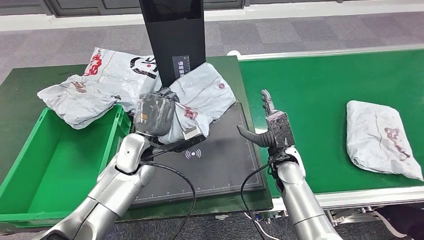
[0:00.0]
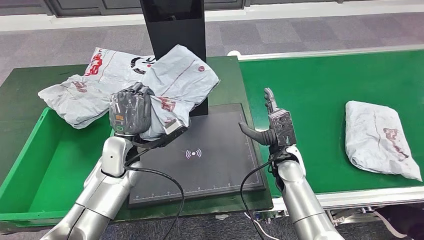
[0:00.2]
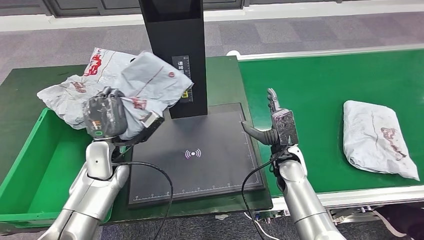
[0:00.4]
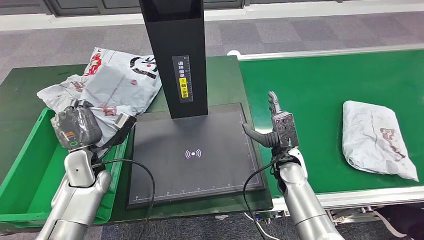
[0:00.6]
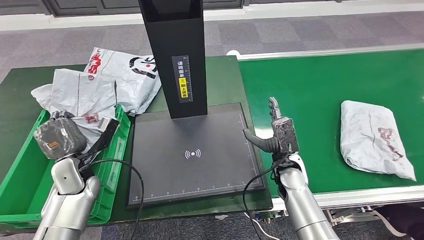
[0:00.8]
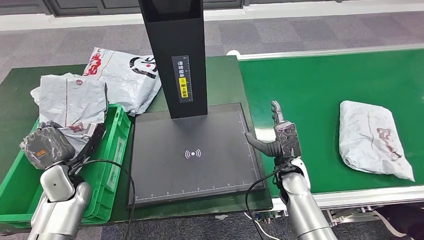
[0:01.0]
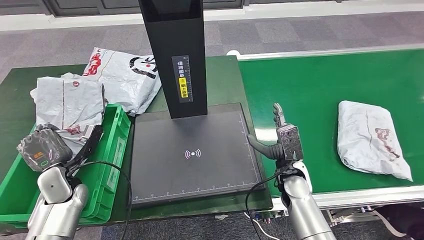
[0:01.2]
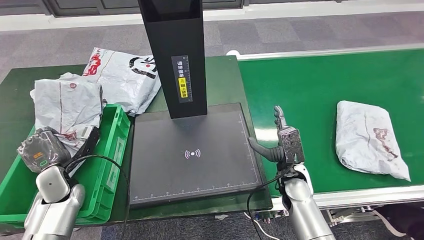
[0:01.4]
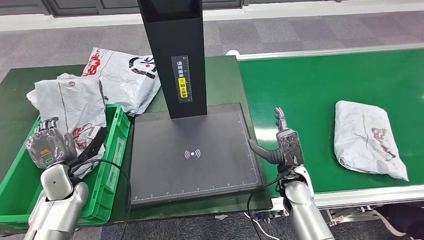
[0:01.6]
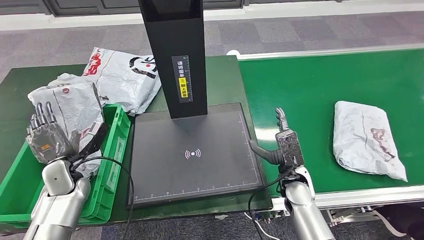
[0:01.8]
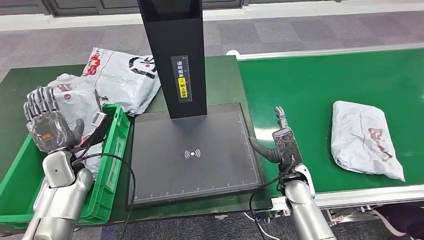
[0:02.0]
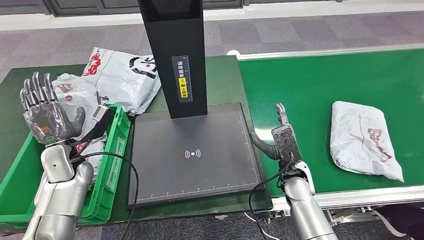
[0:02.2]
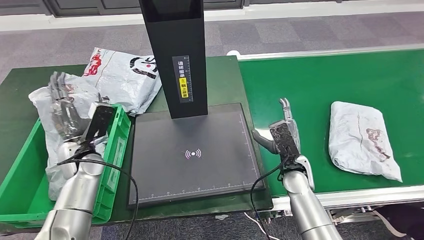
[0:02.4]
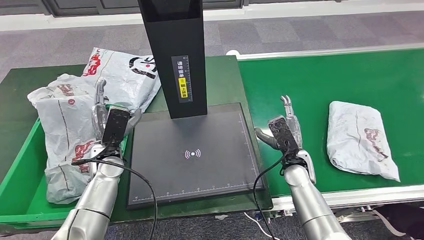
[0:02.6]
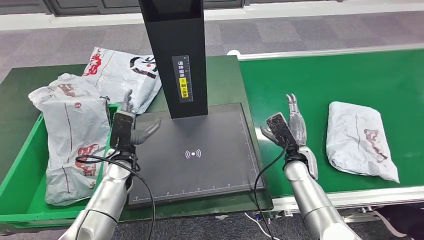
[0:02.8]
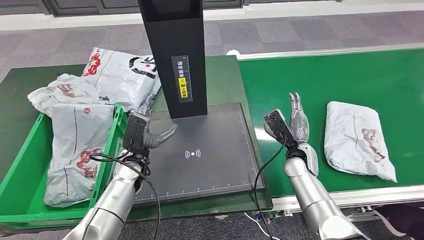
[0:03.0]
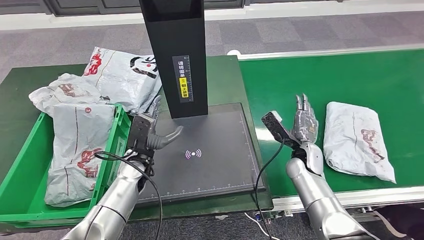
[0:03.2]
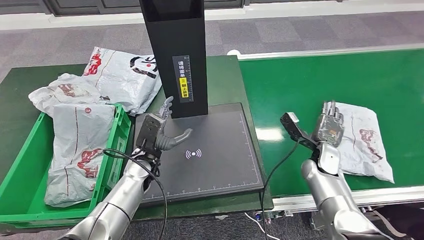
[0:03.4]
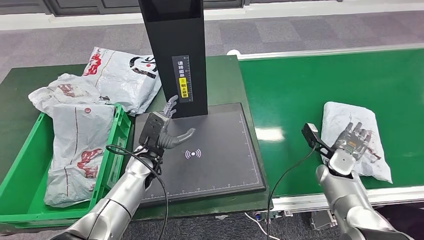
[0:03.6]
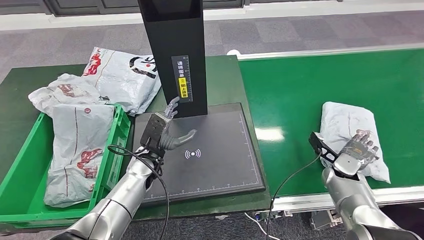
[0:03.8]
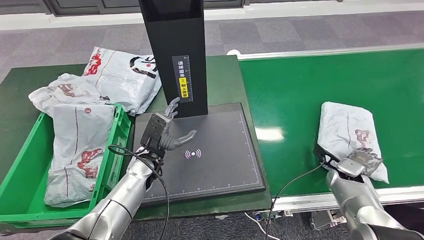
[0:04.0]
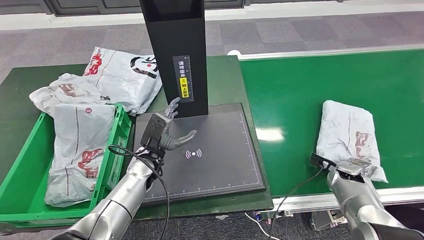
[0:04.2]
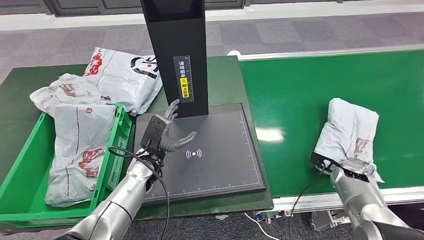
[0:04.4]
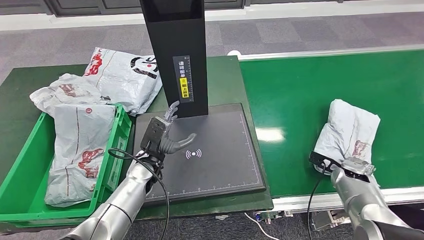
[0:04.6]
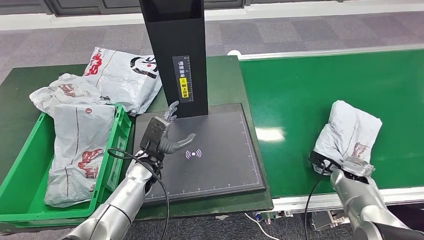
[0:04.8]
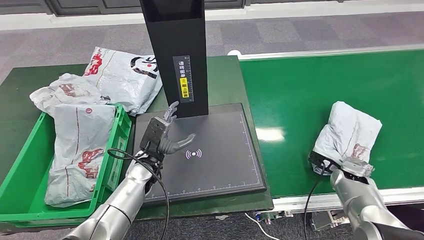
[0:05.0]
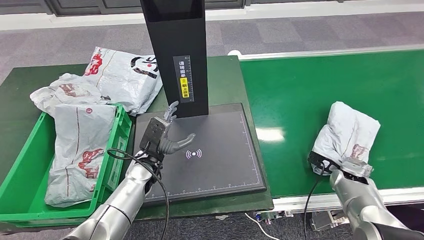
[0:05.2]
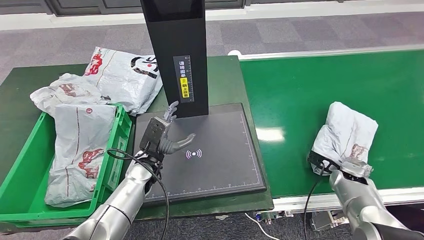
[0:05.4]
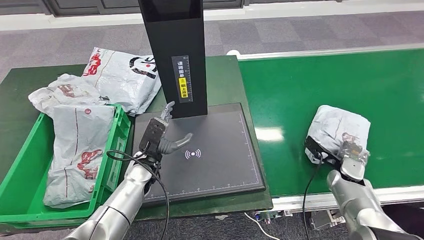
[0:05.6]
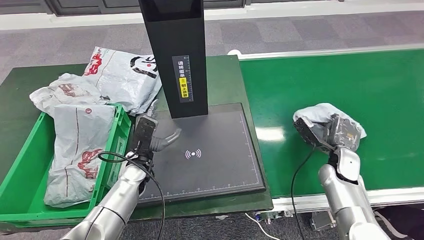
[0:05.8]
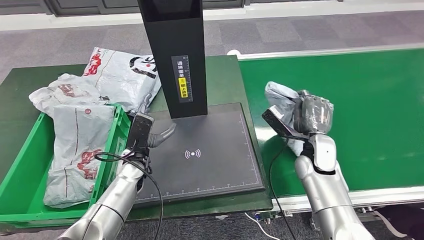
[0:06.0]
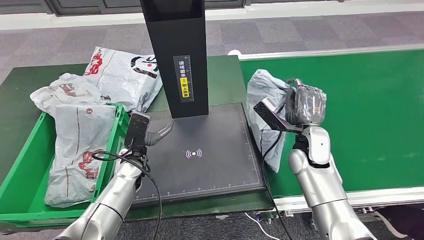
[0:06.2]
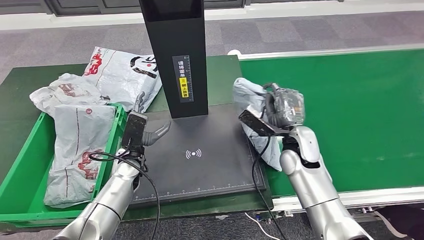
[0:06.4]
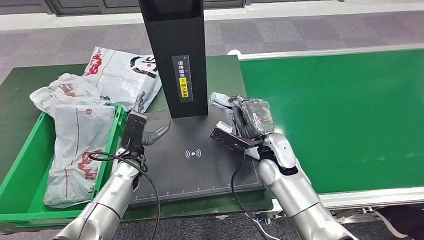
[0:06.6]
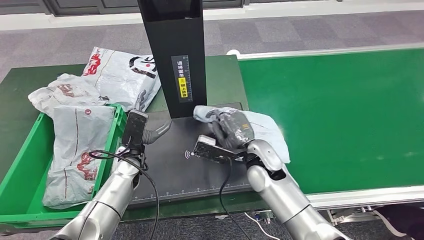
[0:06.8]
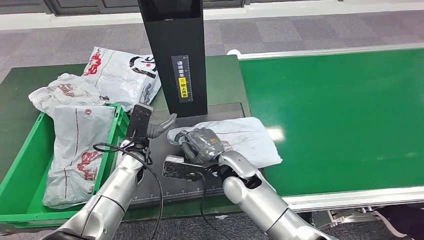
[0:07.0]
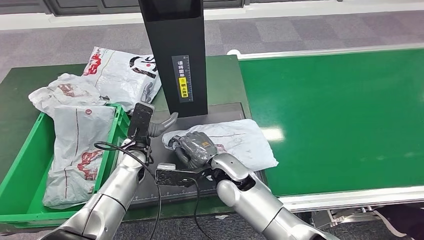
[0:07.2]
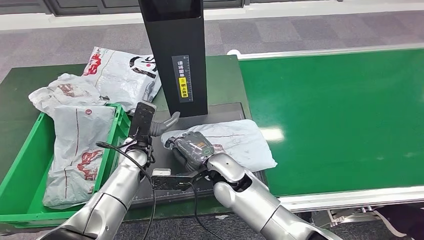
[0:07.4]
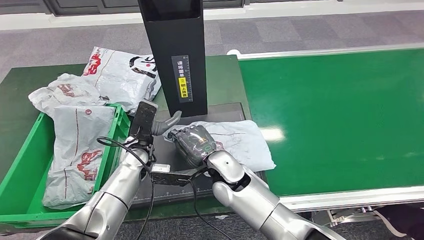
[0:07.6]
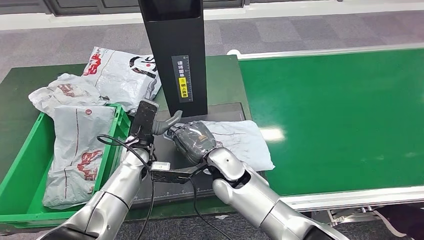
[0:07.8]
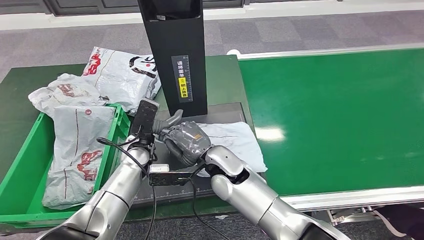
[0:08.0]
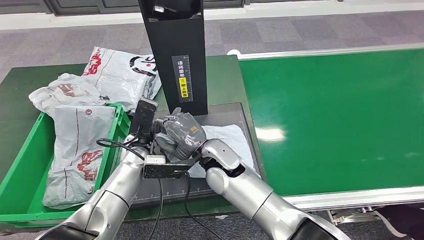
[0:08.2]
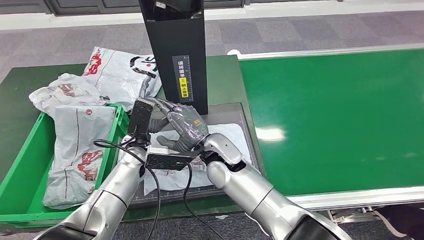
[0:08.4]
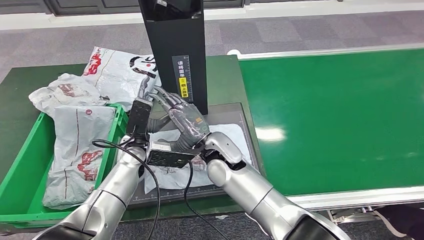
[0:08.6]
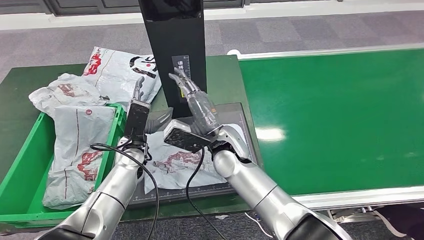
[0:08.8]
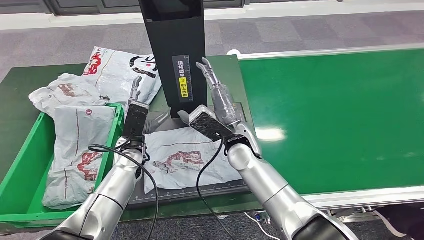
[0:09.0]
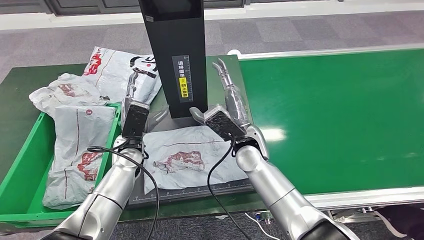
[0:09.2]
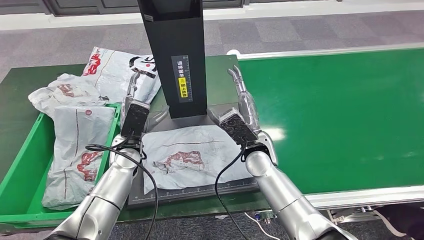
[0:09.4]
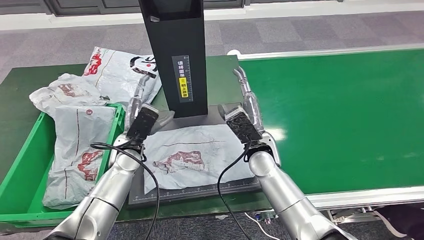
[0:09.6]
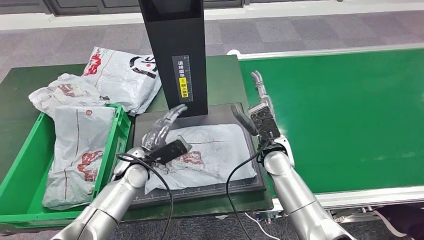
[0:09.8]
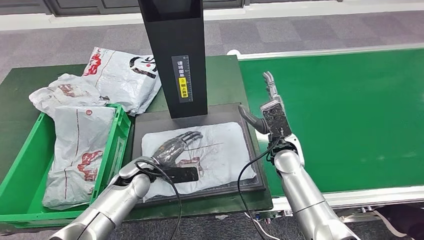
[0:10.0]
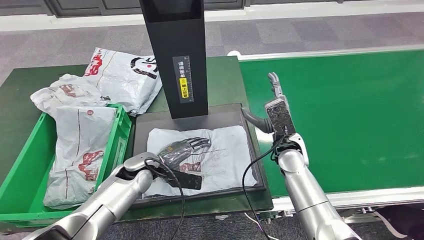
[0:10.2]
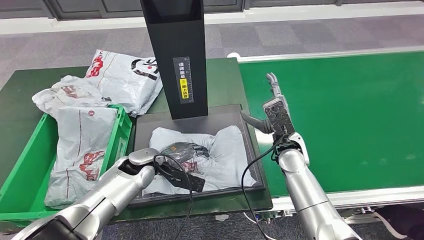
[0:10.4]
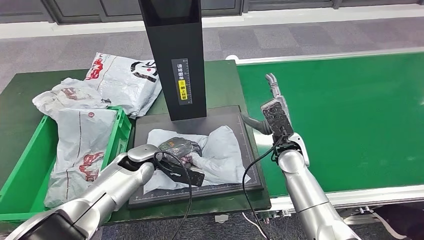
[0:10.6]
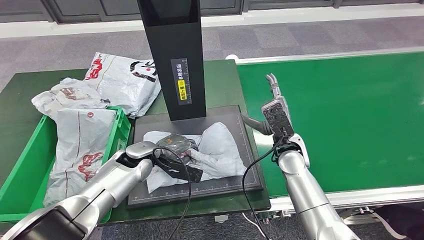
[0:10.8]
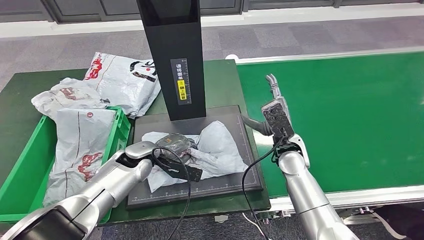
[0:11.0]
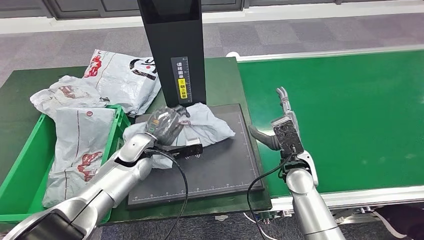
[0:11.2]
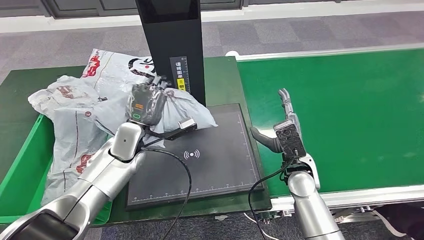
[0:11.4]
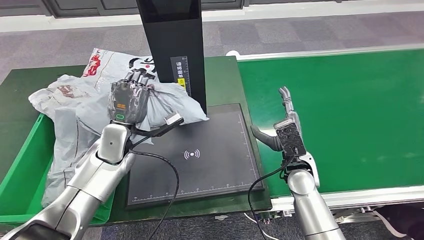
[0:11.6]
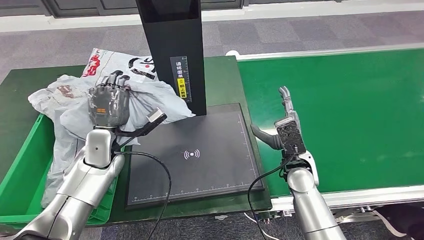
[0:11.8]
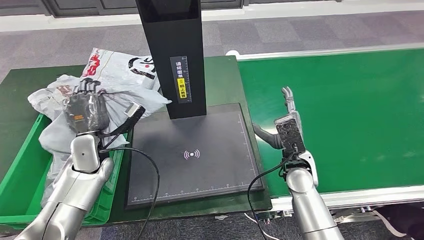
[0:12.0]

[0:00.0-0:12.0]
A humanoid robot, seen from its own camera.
Step, 0:01.2 to 0:03.2: Place the parcel into the delivery box.
Step, 0:03.4 to 0:06.2: Pick up the parcel from the conveyor belt.
Step, 0:06.4 to 0:08.4: Place the parcel onto the inbound machine.
0:07.6 to 0:09.0: The right hand travels forward by approximately 5 cm.

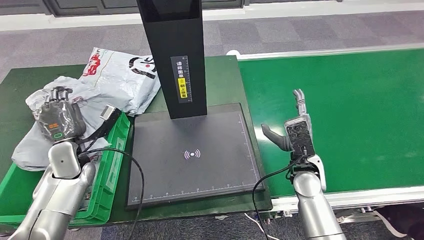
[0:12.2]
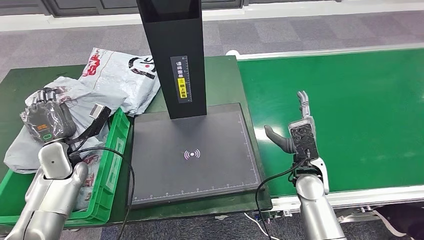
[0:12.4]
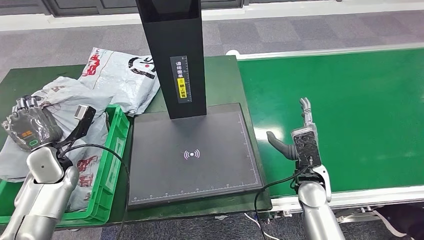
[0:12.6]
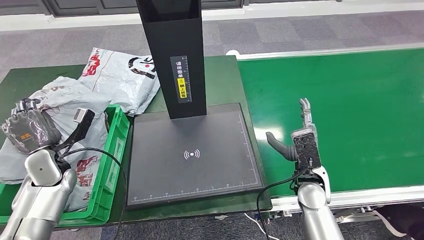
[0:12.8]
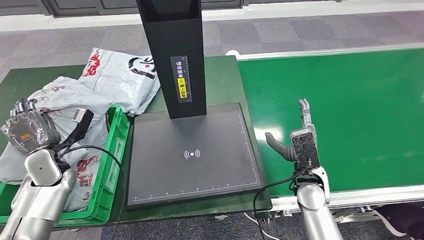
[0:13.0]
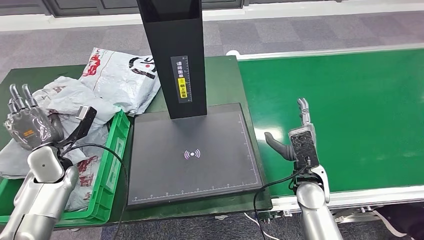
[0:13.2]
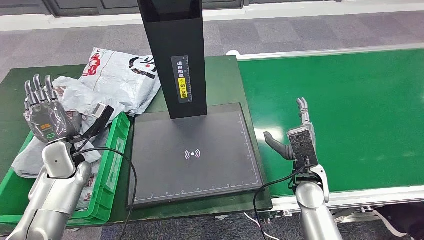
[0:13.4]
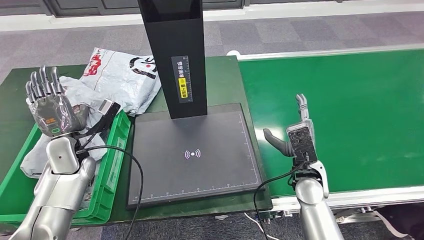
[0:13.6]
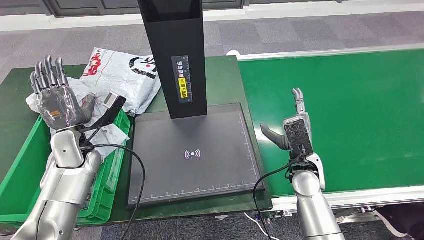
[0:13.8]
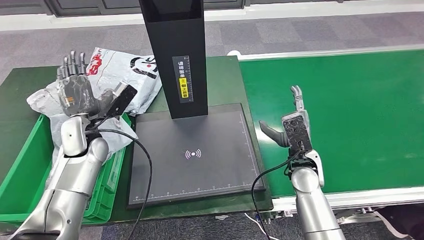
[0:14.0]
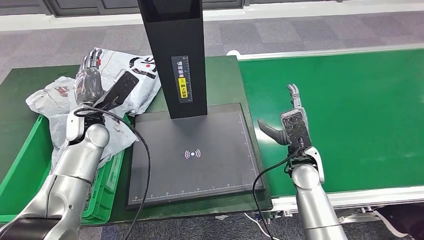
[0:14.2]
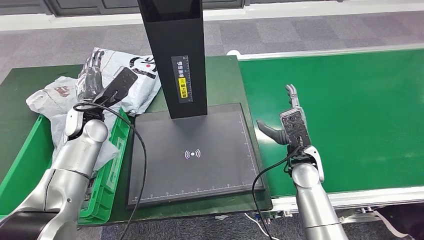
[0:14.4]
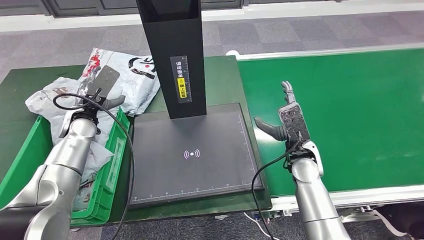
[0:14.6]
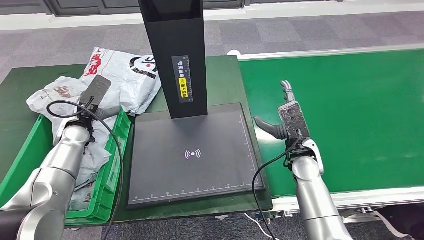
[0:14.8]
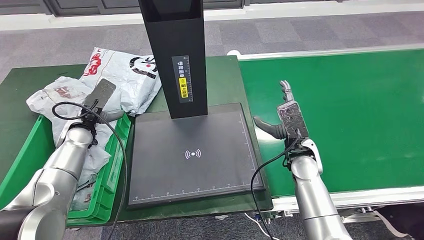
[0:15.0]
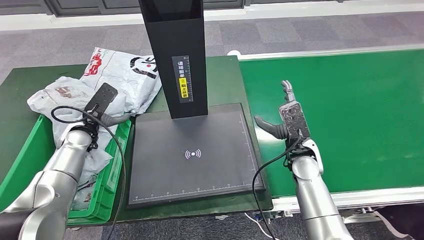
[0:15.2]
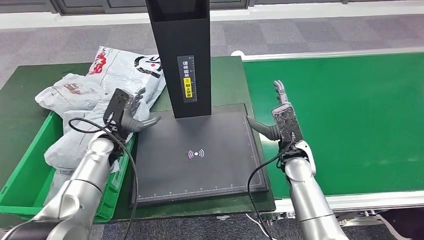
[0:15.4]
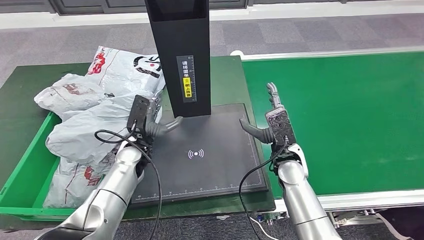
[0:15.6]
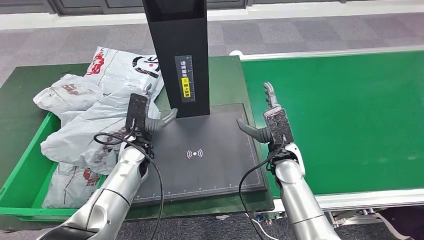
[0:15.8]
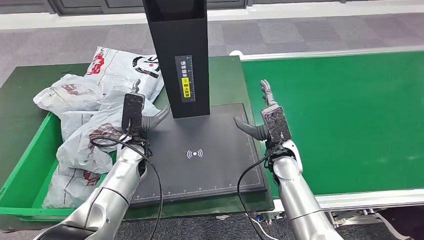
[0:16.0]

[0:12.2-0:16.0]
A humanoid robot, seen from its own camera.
Step, 0:12.4 to 0:15.8: Place the parcel into the delivery box.
0:13.4 to 0:14.8: Both hands move forward, some 5 cm.

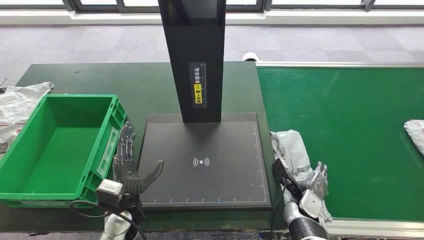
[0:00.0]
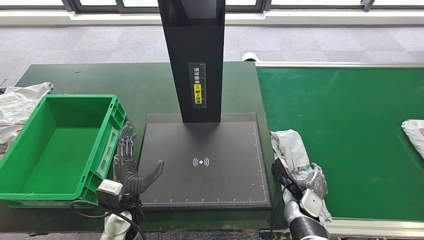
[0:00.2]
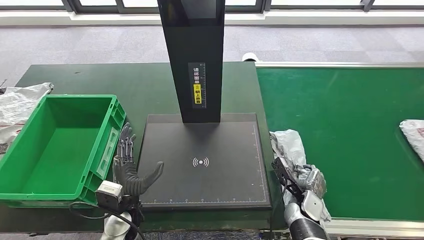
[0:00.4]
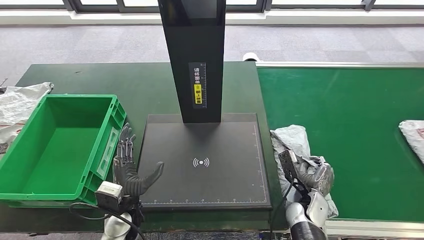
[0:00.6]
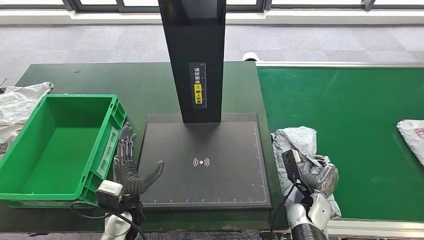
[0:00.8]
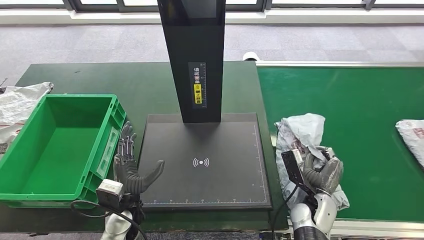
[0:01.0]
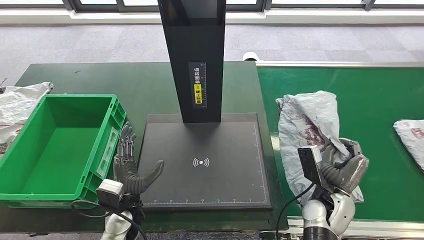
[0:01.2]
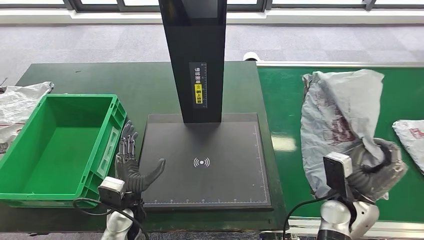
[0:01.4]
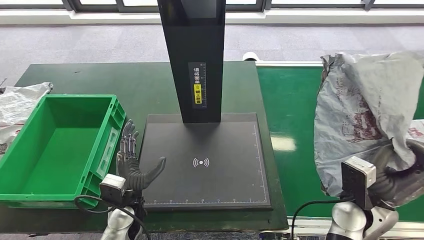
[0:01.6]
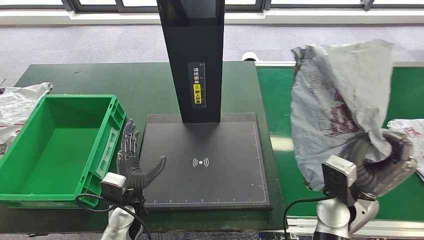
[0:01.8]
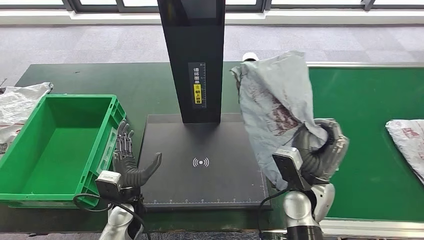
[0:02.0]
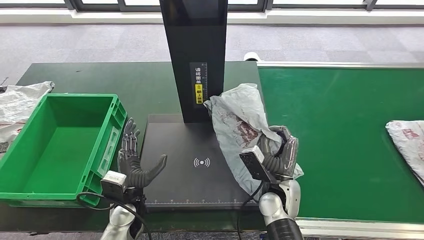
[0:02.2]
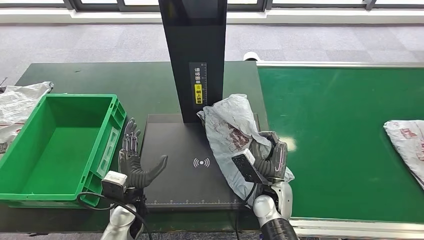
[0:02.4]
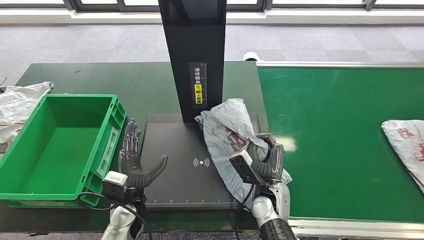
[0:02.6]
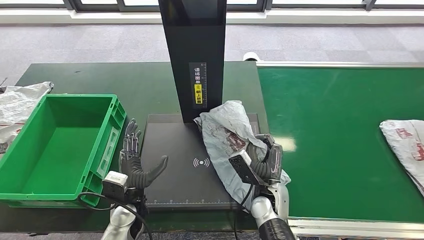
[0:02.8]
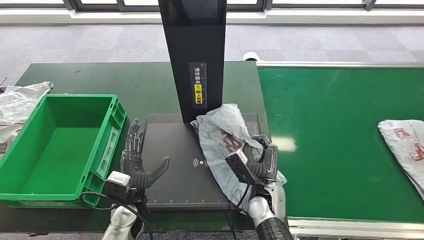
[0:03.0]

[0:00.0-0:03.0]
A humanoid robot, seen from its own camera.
Step, 0:00.0 to 0:01.6: Take the parcel off the conveyor belt.